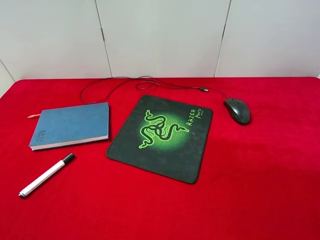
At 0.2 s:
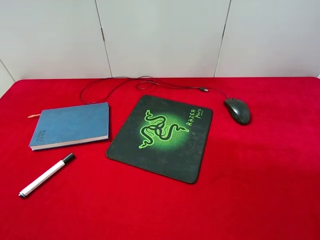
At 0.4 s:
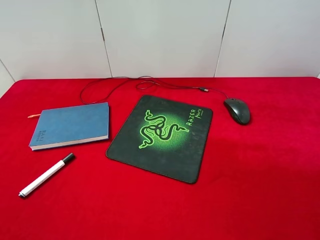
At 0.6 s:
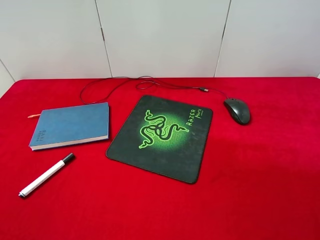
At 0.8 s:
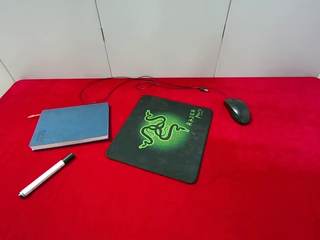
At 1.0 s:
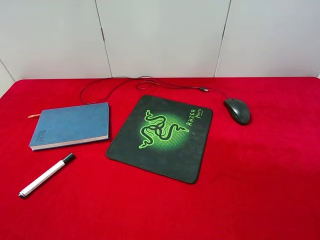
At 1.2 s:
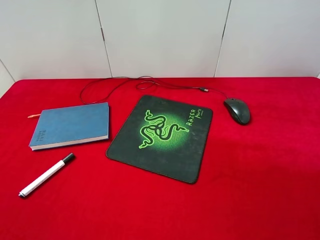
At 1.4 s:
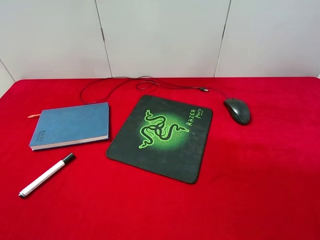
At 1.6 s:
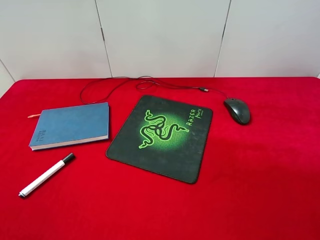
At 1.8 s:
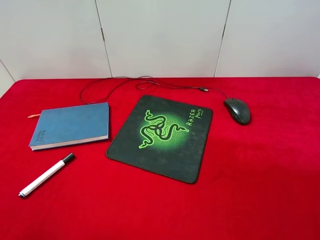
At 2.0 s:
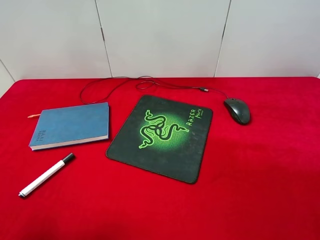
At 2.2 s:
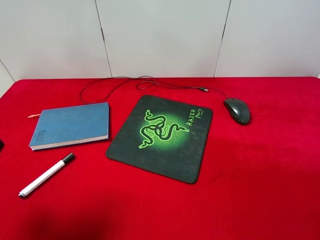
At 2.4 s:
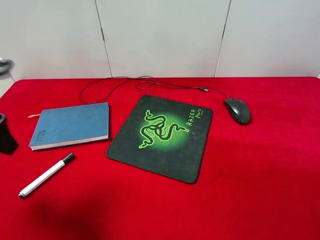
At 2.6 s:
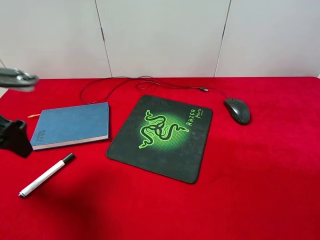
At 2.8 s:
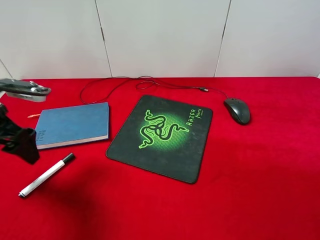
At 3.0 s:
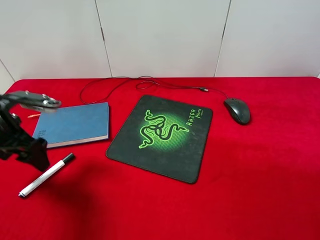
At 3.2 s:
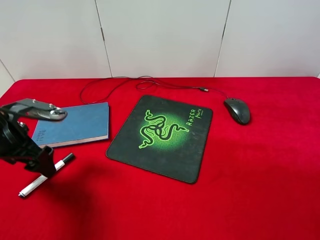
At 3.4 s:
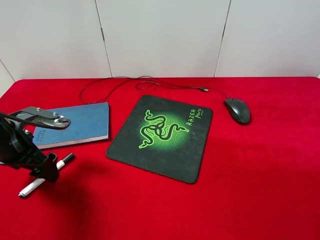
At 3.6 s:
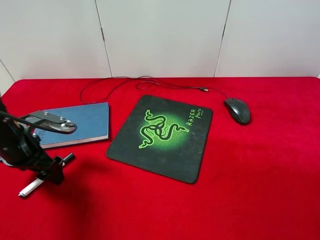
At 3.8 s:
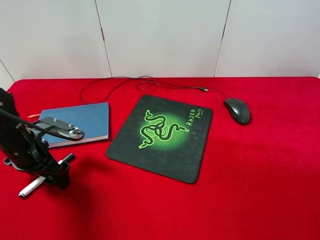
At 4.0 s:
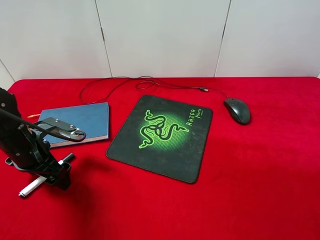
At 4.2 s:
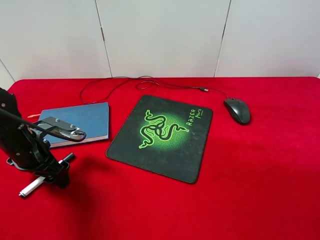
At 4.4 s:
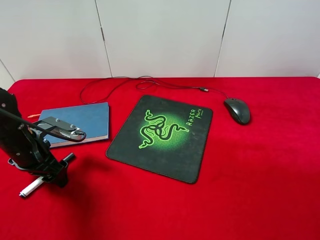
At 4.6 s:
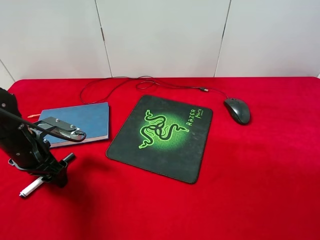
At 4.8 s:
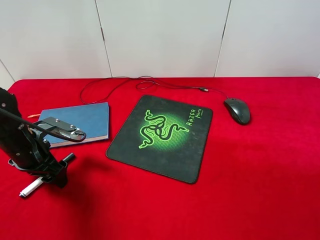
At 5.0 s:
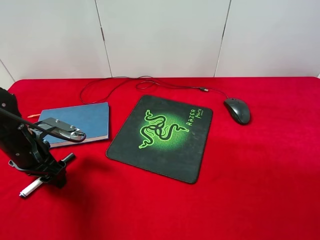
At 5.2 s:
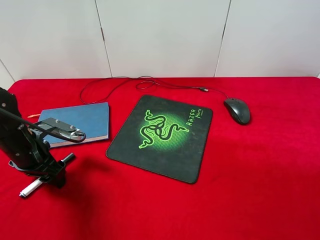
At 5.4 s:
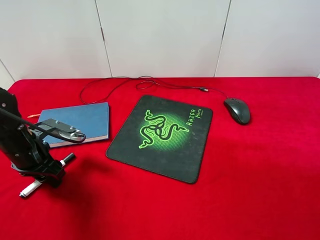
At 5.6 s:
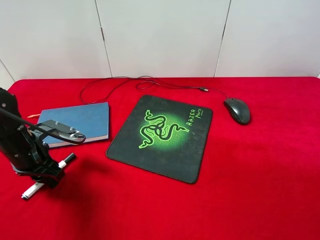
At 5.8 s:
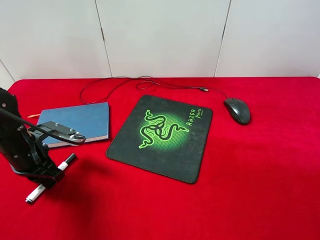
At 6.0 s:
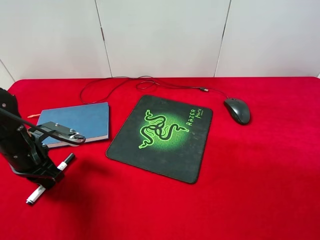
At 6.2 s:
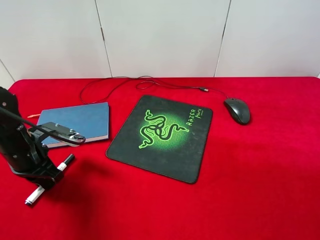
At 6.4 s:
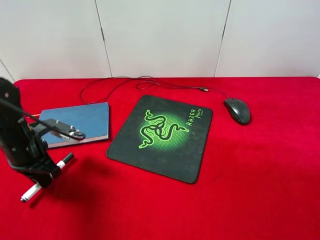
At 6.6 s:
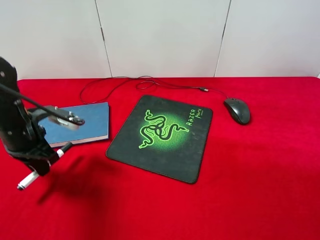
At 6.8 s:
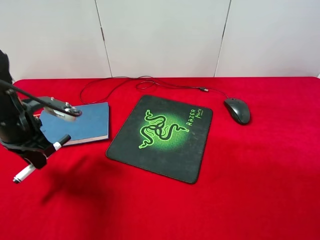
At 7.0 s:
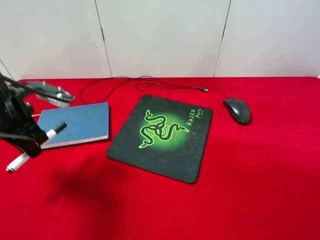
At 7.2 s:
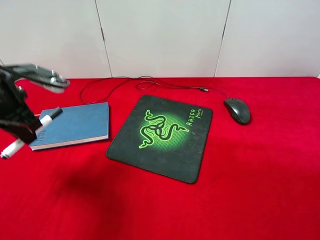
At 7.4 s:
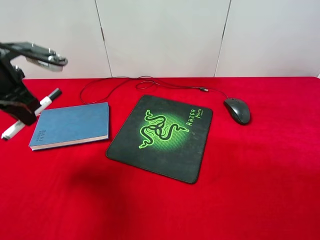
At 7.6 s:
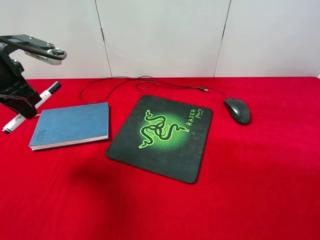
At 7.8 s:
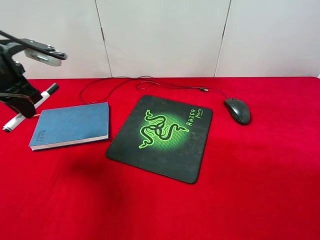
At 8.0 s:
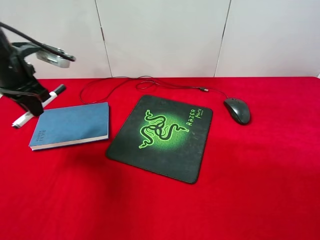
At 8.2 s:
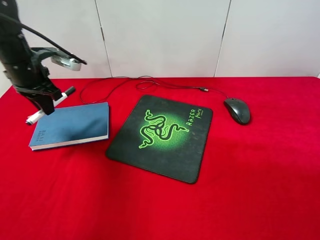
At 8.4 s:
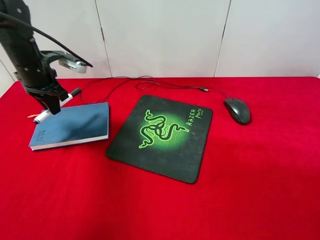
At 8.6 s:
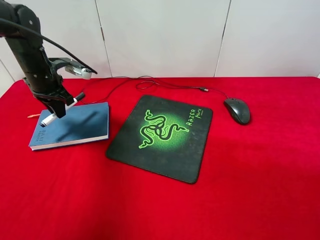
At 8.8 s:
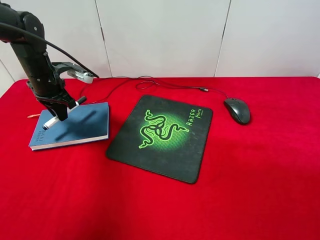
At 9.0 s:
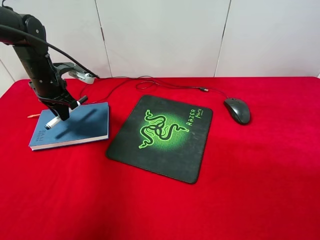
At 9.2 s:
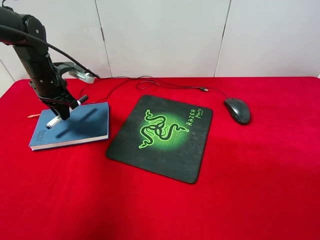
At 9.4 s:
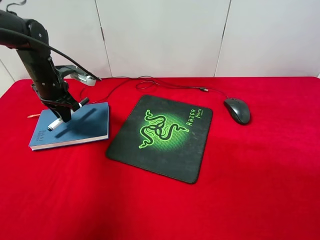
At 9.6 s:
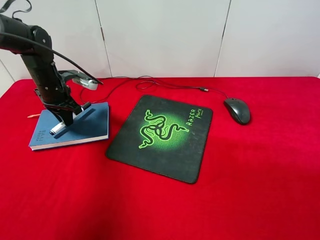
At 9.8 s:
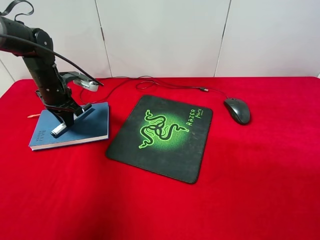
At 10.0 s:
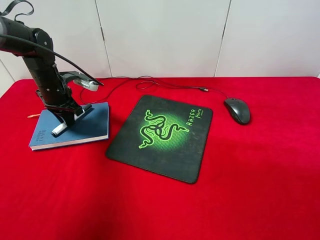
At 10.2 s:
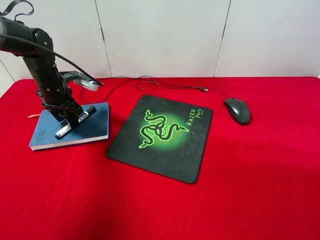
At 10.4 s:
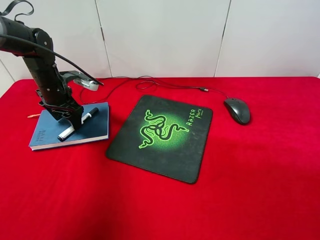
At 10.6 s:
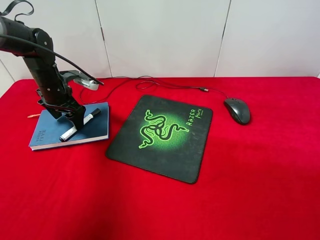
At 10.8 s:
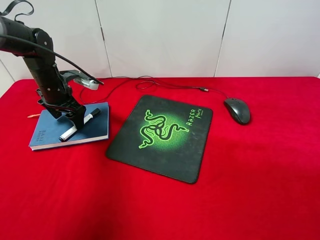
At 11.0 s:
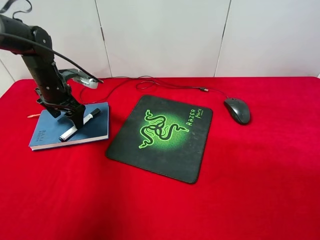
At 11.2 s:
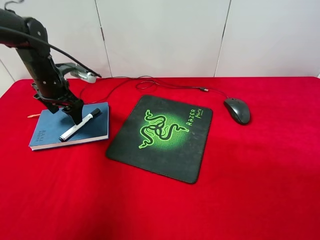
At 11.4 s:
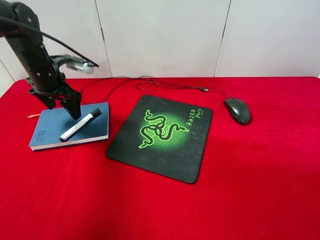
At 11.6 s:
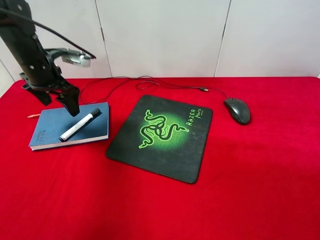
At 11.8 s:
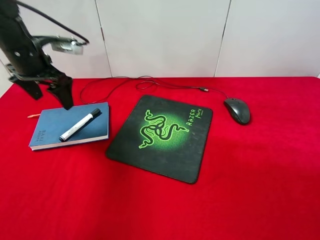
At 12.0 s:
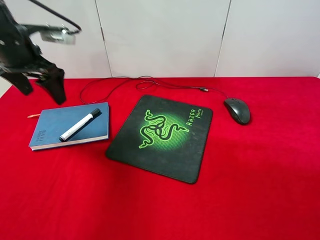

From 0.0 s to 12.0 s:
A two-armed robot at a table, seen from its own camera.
Step, from 0.0 s to 6.8 s: Pick up the marker pen with left gripper.
Step, from 7.0 s to 11.6 s: Place the marker pen on the notebook with left gripper.
From 1.6 s to 3.0 s: The left gripper shifts roughly 25 cm forward and downward.
From 3.0 s to 4.4 s: The left gripper shifts about 5 cm downward.
From 4.4 s to 6.0 s: The left gripper closes.
From 6.0 s to 7.6 s: The left gripper moves upward, roughly 15 cm.
From 7.6 s to 9.0 s: The left gripper moves forward and downward, about 15 cm.
From 9.0 s to 10.4 s: The left gripper opens its fingers.
From 10.4 s to 12.0 s: The left gripper moves upward and backward, roughly 15 cm.

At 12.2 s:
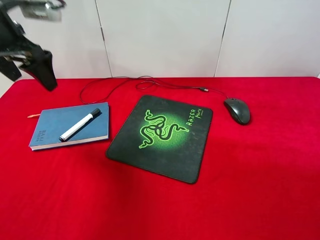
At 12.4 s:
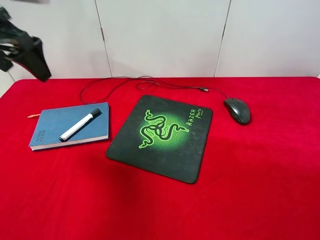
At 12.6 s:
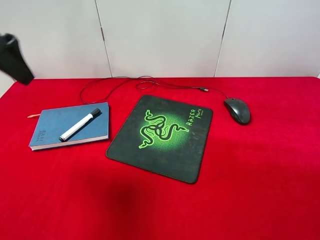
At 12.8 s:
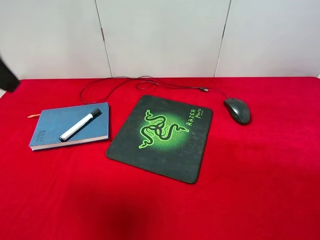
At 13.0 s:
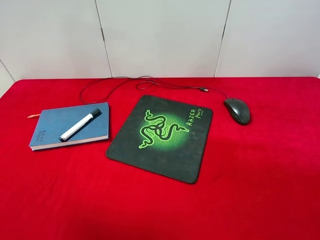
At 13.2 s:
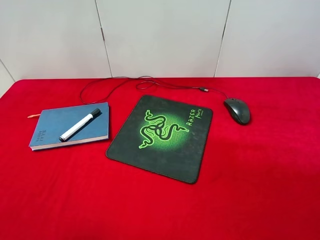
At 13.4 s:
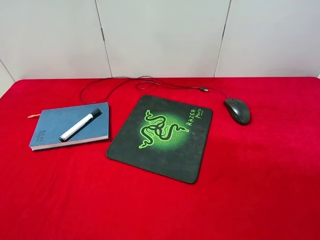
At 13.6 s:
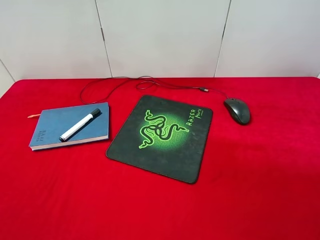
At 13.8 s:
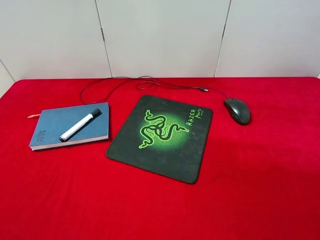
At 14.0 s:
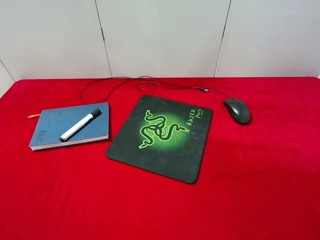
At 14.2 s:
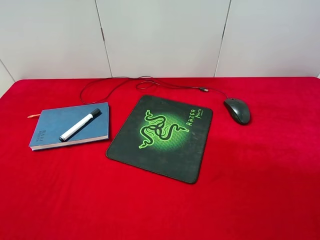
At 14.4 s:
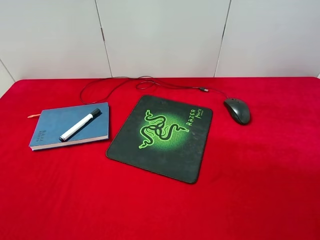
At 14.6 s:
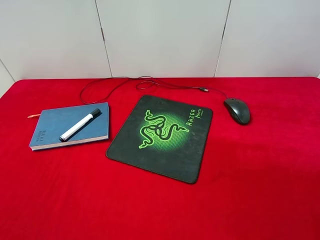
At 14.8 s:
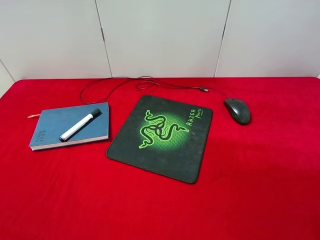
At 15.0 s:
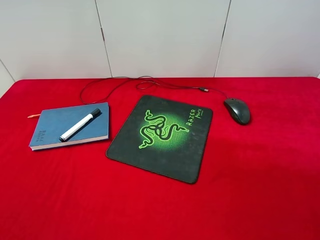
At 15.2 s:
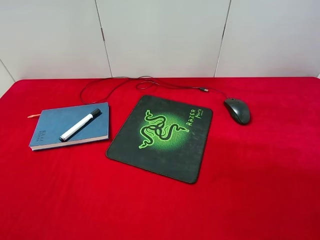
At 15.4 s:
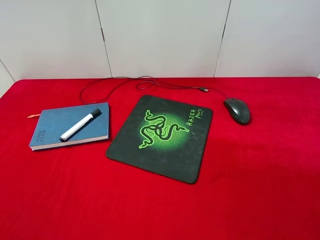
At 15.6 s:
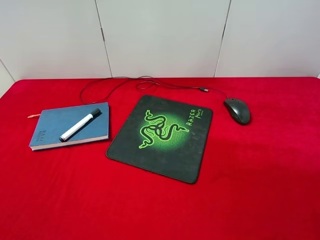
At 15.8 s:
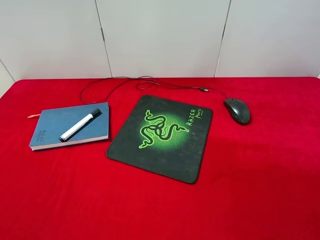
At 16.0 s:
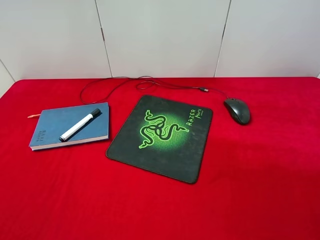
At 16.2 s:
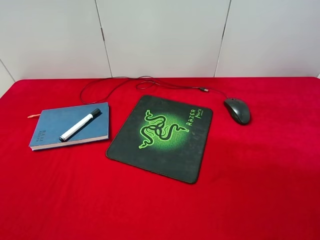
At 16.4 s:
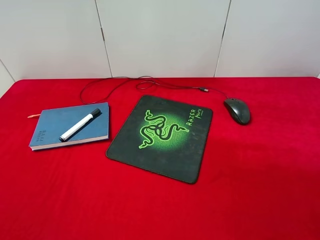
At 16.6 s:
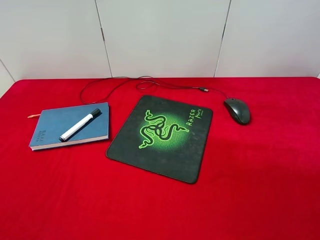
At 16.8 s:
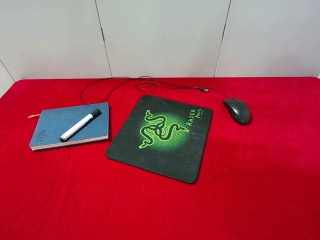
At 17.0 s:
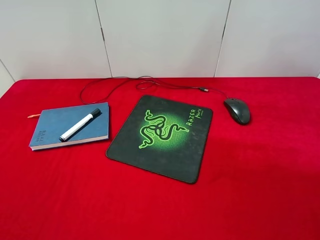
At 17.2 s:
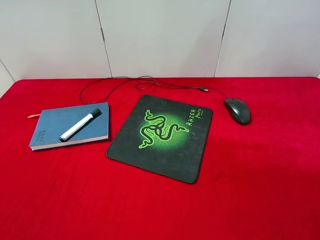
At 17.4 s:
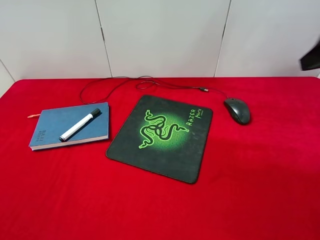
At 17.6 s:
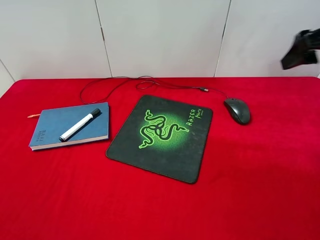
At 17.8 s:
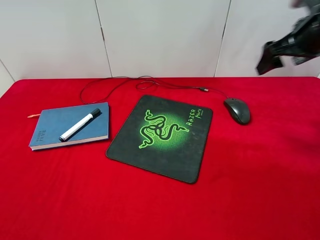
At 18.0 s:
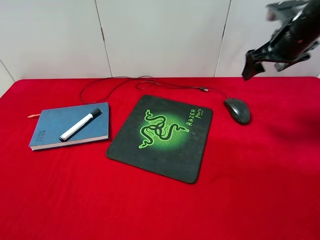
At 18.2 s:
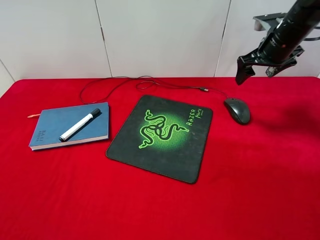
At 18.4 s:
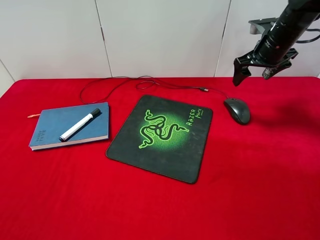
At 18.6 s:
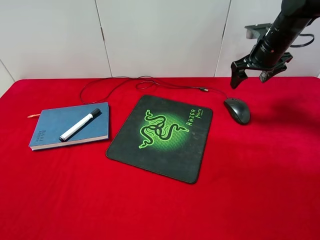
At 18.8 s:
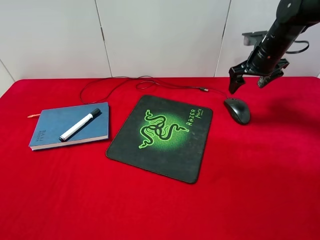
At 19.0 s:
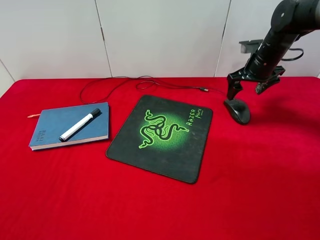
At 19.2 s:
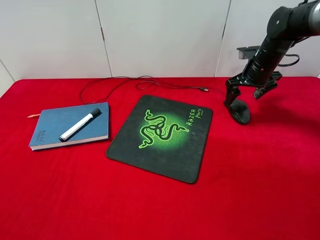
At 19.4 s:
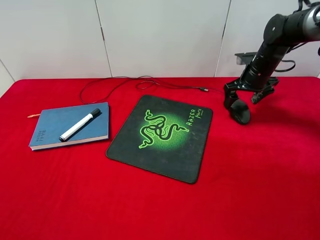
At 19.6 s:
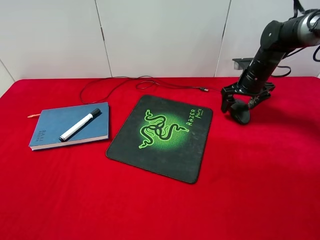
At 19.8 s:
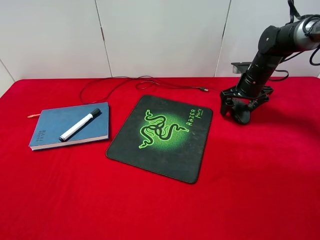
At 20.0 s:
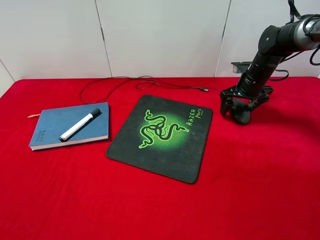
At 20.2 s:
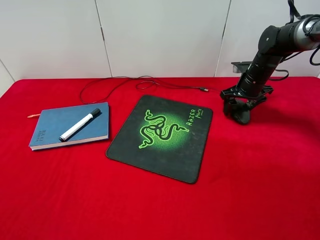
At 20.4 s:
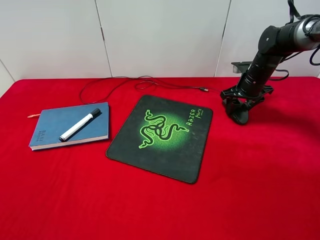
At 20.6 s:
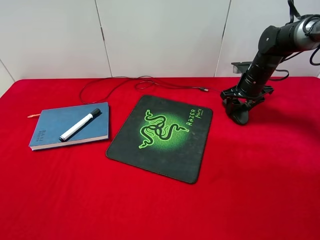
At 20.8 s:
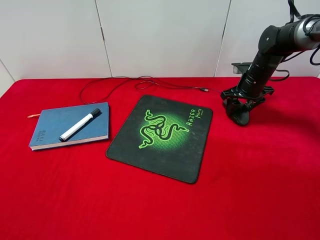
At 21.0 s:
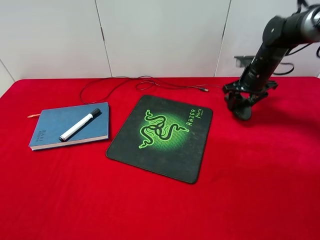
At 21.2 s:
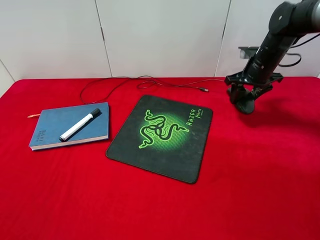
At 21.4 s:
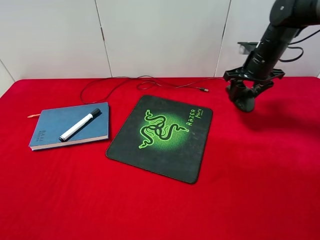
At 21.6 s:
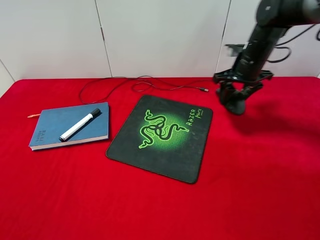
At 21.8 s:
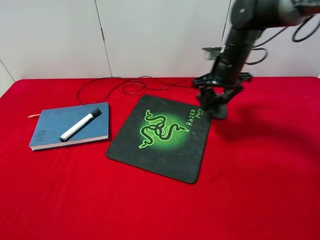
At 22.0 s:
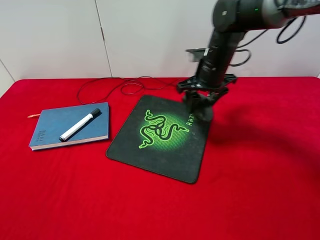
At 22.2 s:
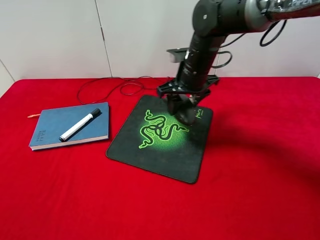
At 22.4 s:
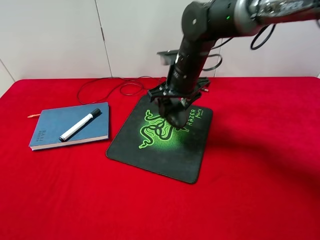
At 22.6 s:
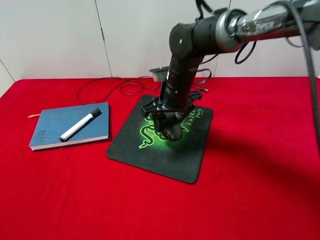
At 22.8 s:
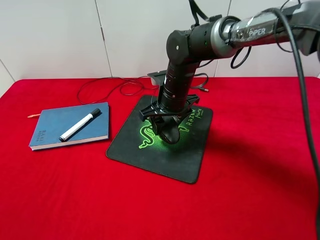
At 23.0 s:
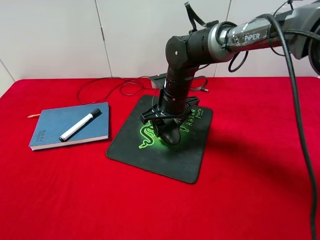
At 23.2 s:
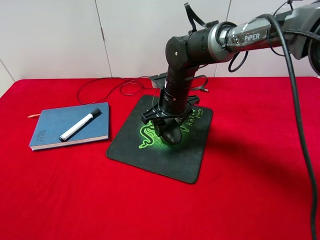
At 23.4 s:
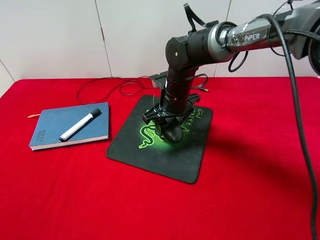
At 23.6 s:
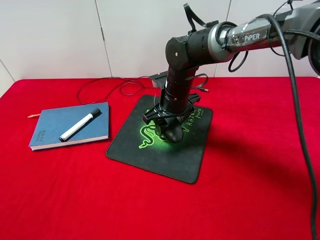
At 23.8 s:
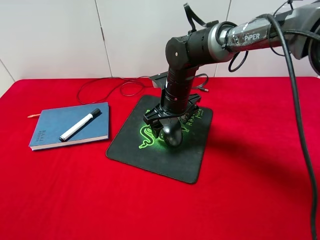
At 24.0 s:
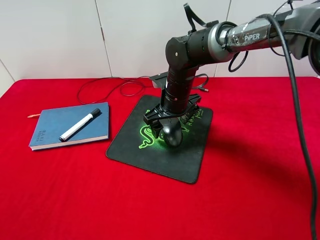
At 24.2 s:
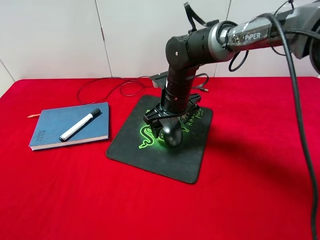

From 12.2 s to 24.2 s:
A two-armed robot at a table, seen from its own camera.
Step, from 12.2 s to 21.4 s: Pick up the mouse with right gripper.
From 12.2 s to 13.8 s: The left gripper goes about 30 cm backward.
From 16.6 s to 18.2 s: The right gripper is displaced forward by approximately 40 cm.
From 18.2 s to 19.8 s: The right gripper shifts roughly 10 cm downward.
From 19.8 s to 21.2 s: The right gripper heads upward, covering some 5 cm, and closes up.
From 21.2 s to 22.6 s: The right gripper moves to the left, approximately 20 cm.
From 22.6 s to 24.2 s: The right gripper opens up.
